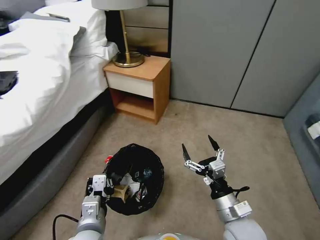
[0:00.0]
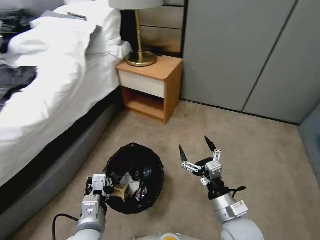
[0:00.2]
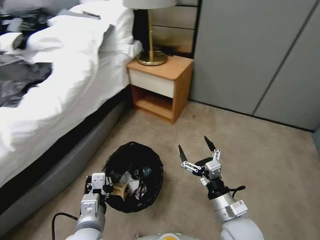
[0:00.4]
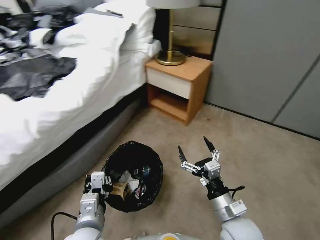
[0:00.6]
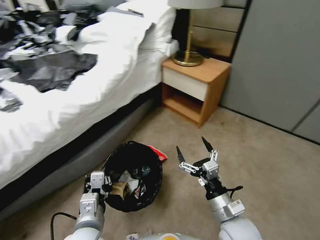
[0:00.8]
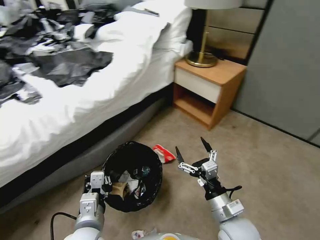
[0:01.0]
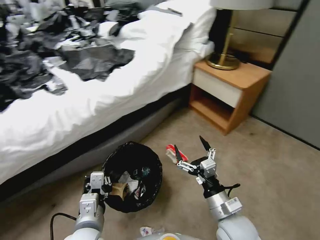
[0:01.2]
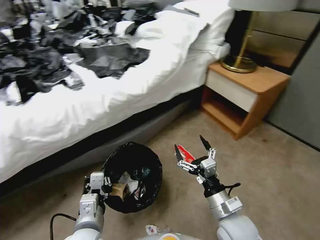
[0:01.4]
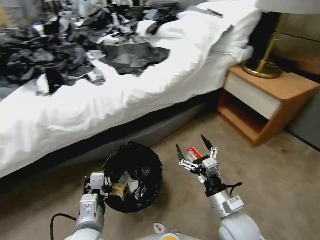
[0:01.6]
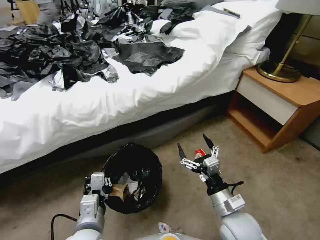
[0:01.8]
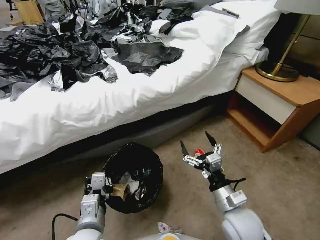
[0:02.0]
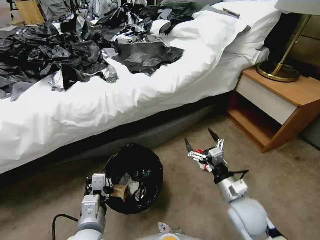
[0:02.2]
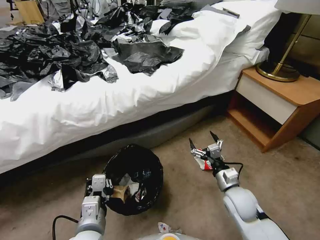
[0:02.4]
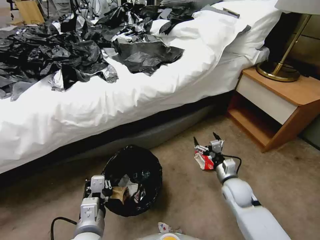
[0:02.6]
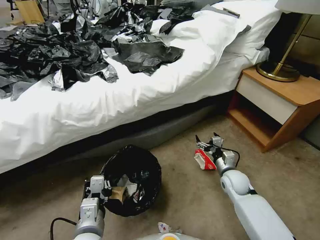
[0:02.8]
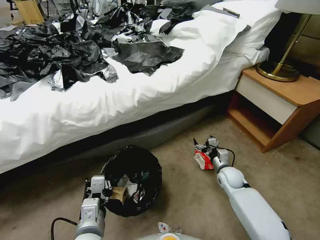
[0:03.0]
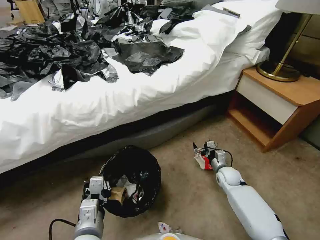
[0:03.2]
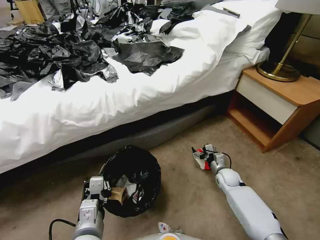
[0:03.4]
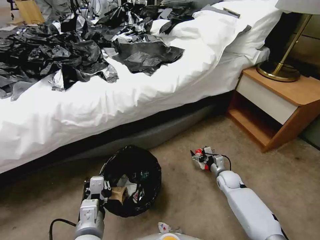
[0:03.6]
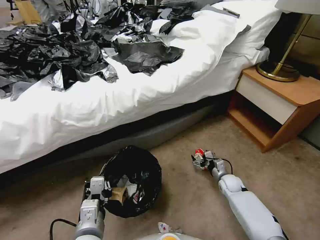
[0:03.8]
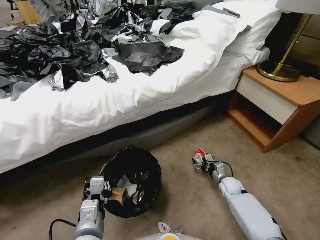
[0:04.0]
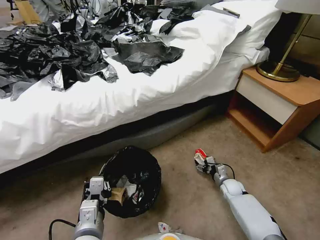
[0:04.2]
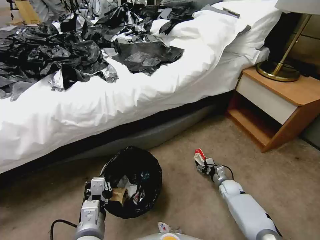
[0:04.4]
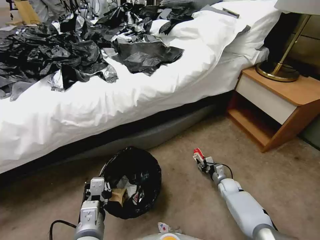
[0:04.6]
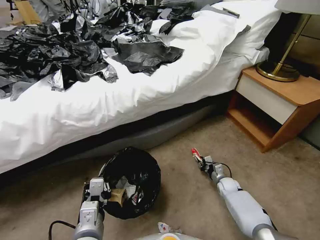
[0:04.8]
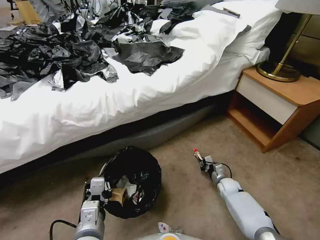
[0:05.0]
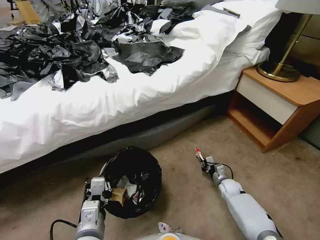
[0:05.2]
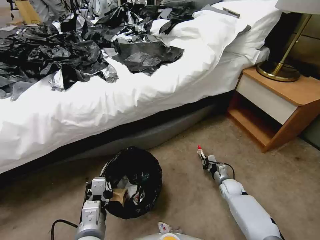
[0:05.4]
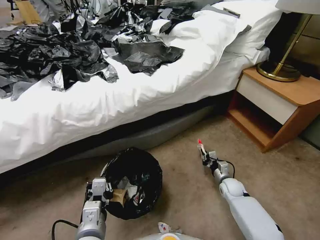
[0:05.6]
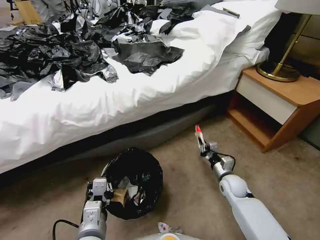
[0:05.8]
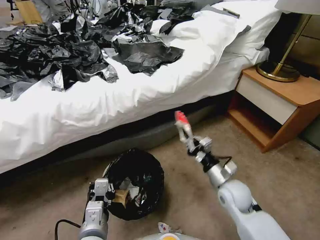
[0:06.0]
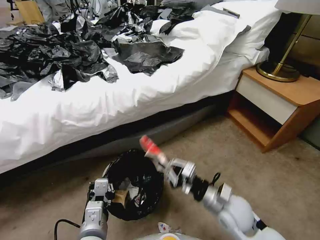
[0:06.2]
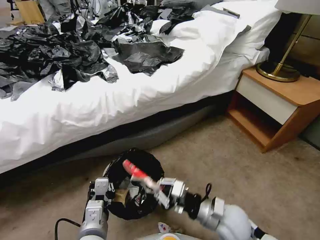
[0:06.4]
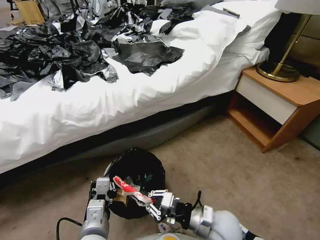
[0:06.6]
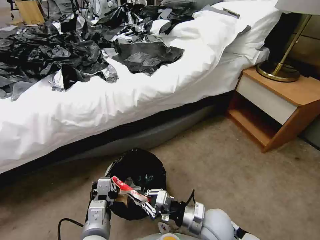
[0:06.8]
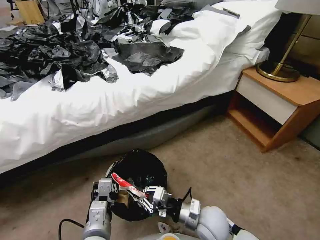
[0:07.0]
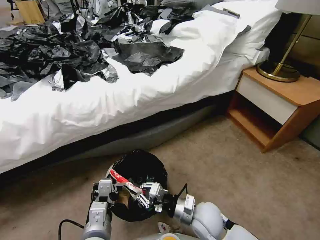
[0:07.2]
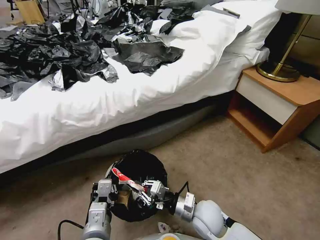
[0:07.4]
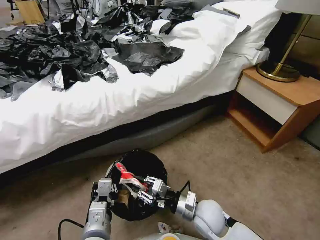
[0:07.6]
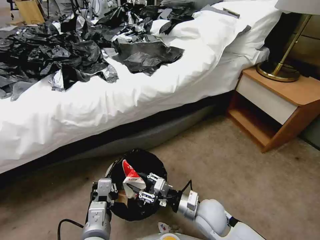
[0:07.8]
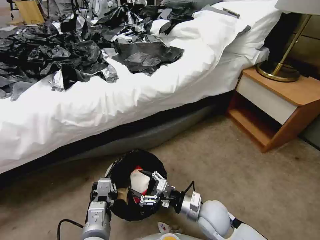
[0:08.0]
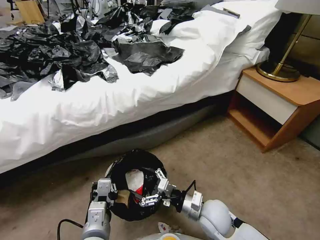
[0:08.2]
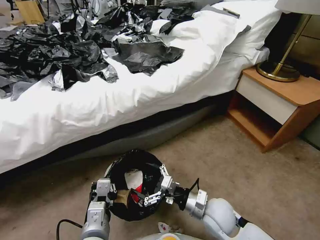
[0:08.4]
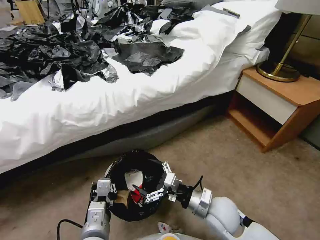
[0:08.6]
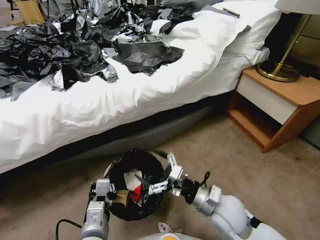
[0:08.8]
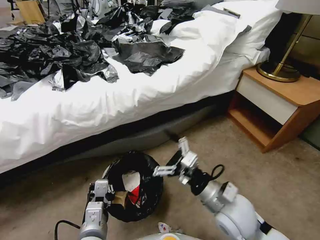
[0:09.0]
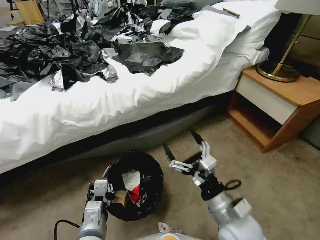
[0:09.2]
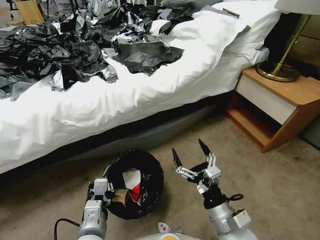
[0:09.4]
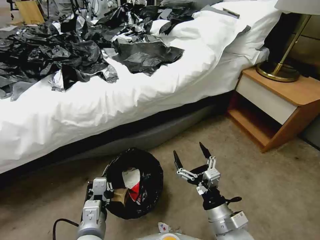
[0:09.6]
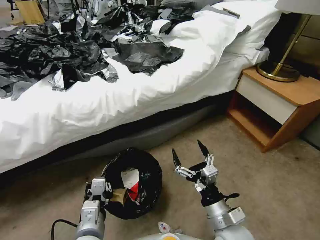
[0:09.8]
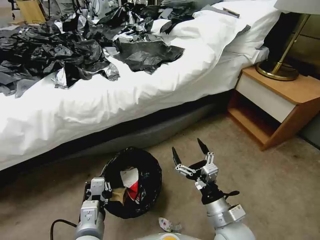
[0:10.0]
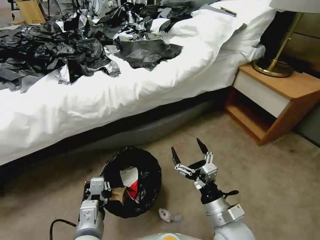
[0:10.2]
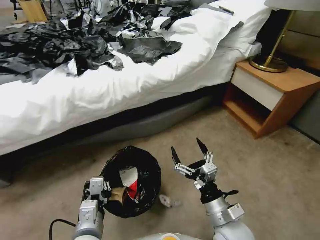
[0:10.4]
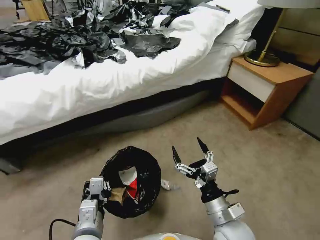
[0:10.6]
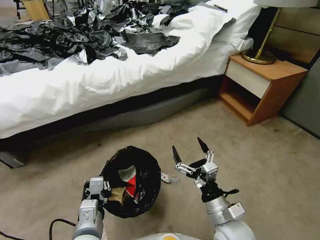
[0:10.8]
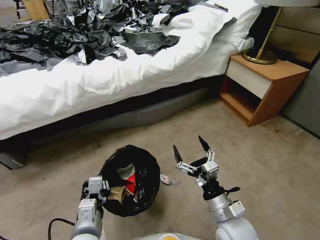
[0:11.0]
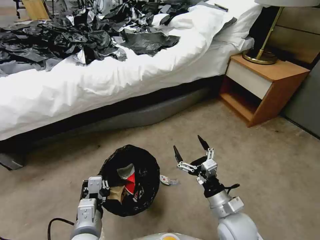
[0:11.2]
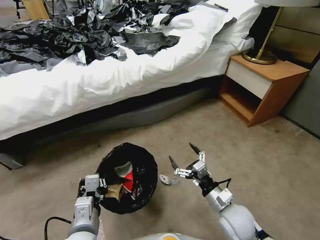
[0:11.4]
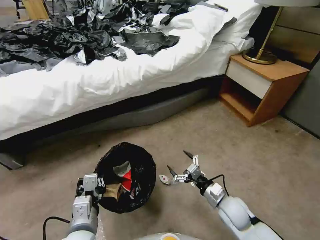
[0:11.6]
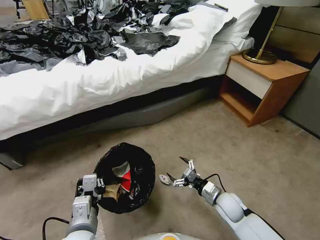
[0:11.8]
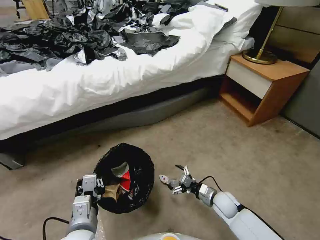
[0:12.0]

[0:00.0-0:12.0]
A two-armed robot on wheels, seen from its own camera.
Task of the whole recording: Pick up the trash bin, then pick up the garbage from the floor and place it into the trash bin.
0:01.6 to 0:03.0: The right gripper travels forward, downward and to the right by approximately 25 cm.
0:03.0 to 0:04.4: The right gripper moves downward, about 10 cm, and closes its fingers.
0:04.4 to 0:06.0: The right gripper heads upward, covering some 20 cm, and closes up.
0:06.0 to 0:07.6: The right gripper travels to the left and backward by roughly 10 cm.
0:07.6 to 0:09.0: The right gripper moves upward, some 10 cm, and opens up.
0:09.0 to 0:10.4: The right gripper is displaced downward by about 5 cm.
0:10.4 to 0:12.0: The right gripper heads downward and forward, covering some 20 cm.

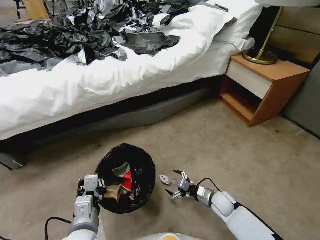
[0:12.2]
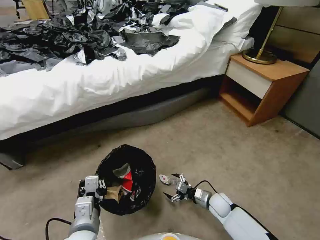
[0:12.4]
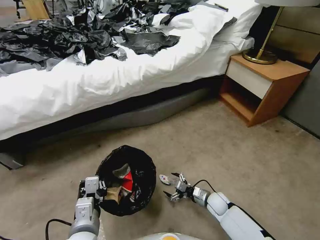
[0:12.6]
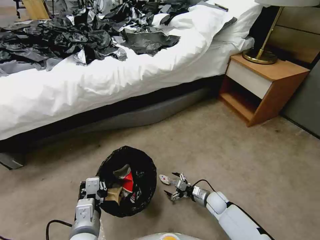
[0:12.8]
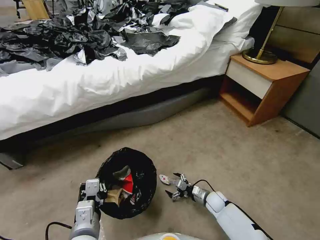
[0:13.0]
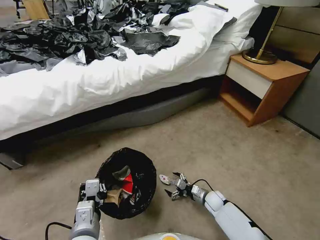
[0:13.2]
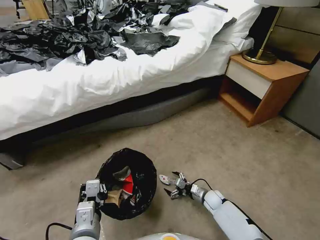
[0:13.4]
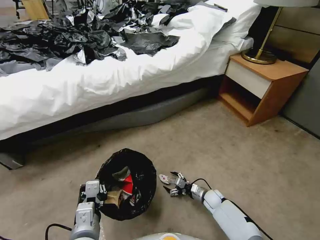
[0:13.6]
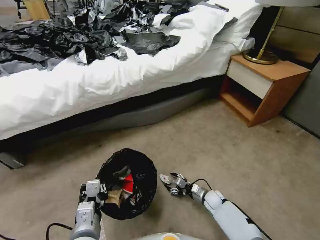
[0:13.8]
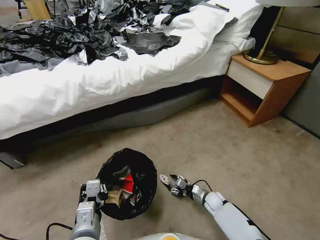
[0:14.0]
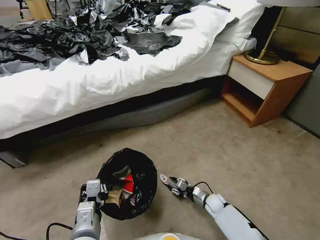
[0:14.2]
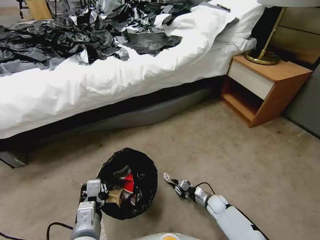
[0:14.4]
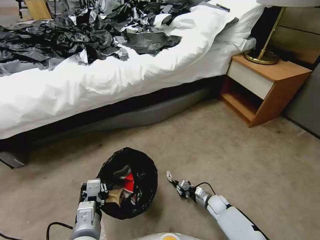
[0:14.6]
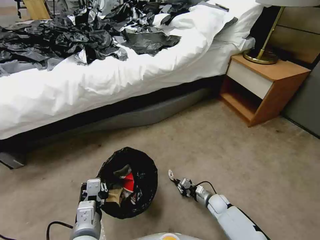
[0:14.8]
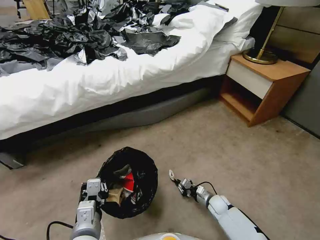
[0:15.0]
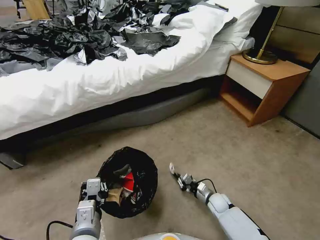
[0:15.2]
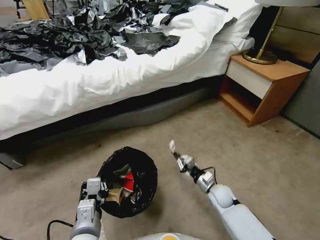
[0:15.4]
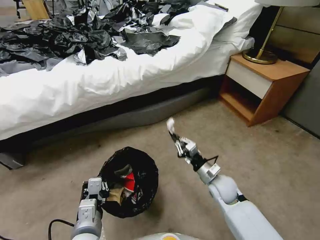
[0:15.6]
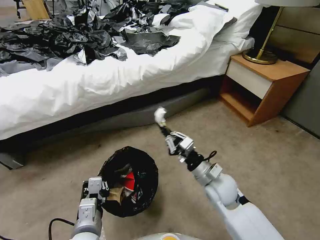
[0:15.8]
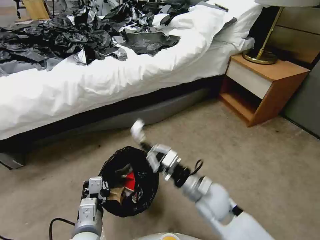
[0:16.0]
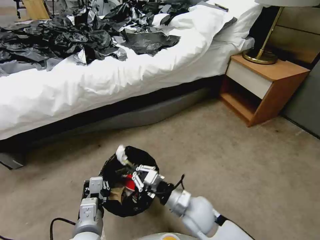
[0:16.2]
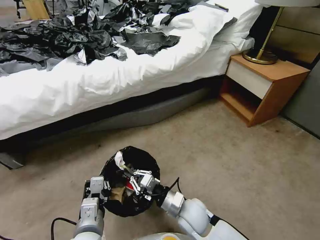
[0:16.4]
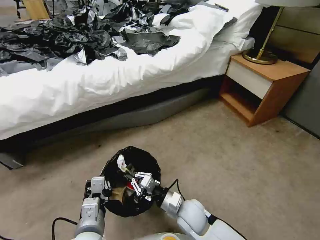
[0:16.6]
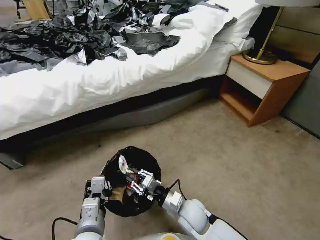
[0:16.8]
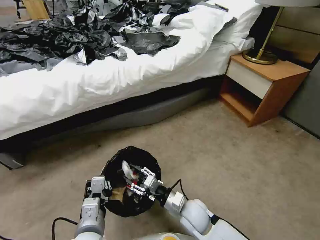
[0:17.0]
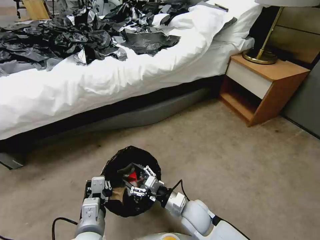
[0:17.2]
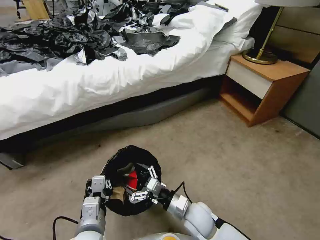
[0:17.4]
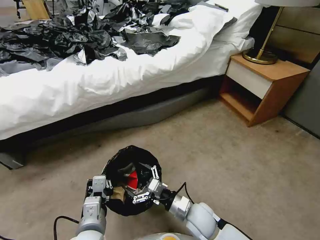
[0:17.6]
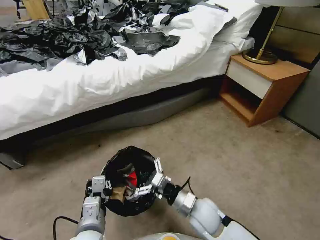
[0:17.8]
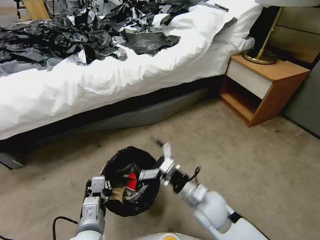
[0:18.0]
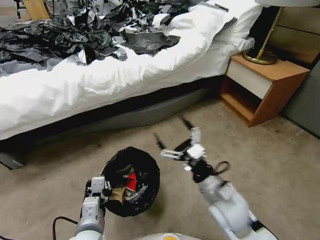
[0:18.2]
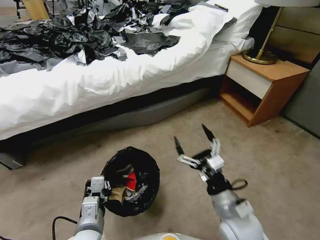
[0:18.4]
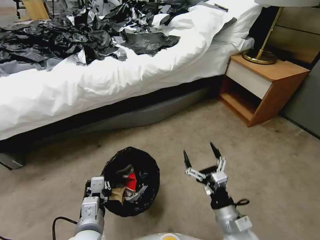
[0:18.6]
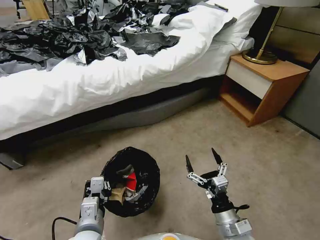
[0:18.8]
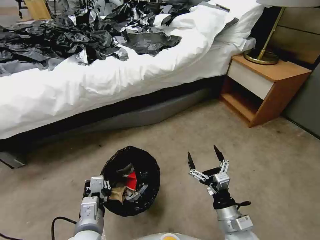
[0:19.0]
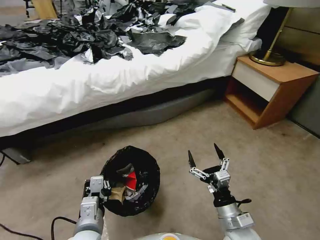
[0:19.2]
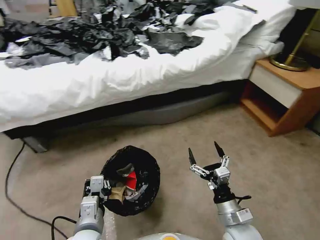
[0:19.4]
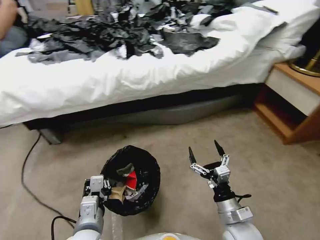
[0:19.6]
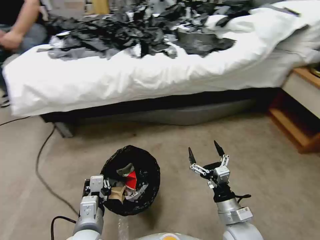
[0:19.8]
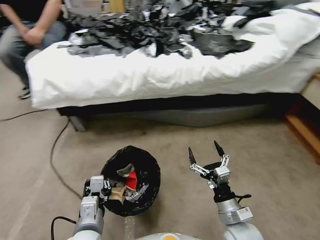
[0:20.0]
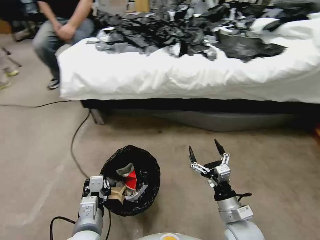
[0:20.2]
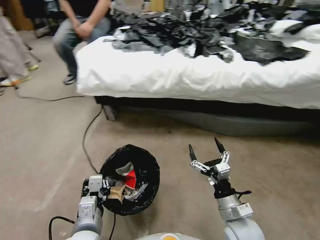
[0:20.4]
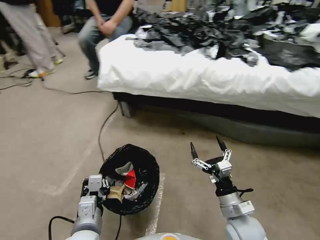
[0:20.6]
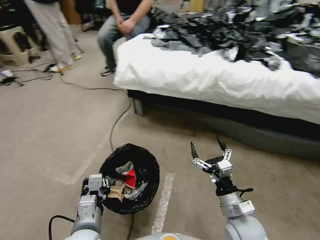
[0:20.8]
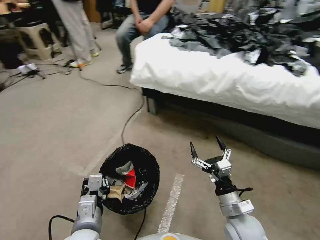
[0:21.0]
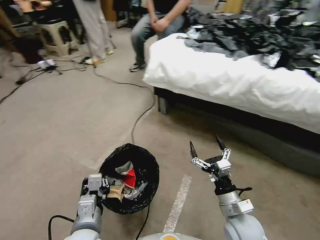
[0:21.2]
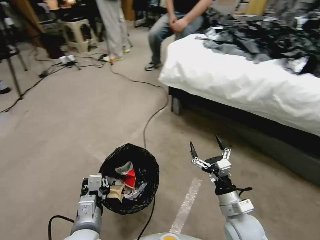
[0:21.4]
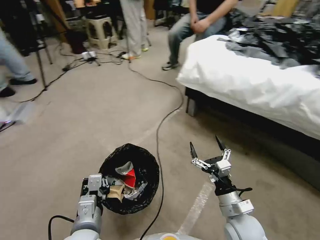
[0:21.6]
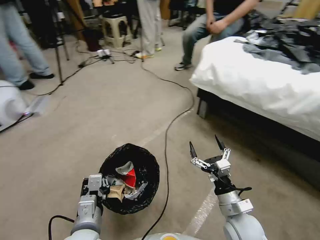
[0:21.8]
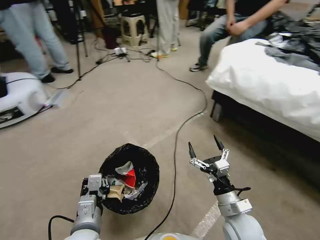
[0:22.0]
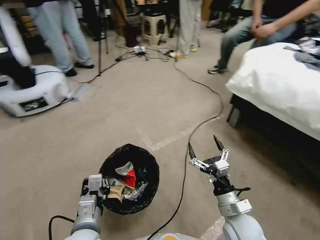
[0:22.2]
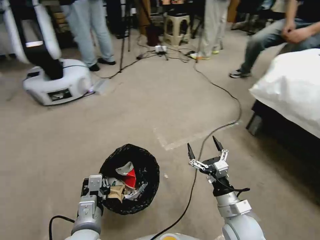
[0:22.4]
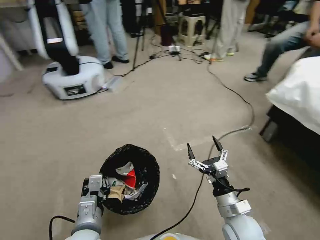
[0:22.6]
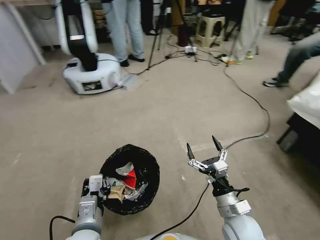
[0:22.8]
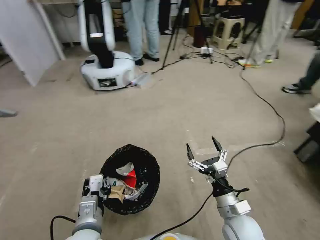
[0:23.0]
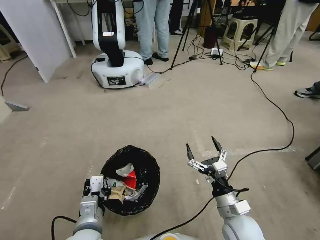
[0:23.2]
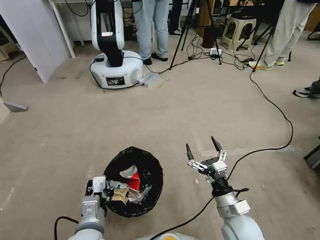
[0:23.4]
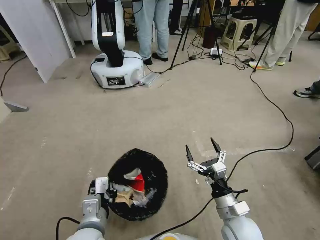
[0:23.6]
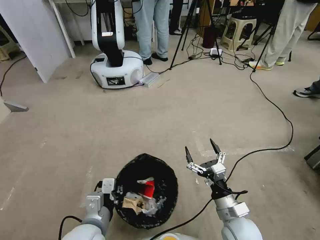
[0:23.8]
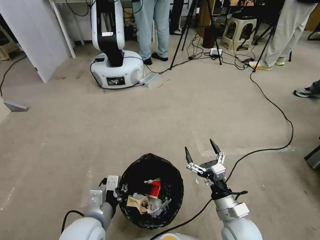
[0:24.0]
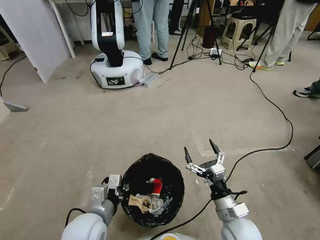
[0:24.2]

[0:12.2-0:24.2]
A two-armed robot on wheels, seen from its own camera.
Task of the whole recording: Pick up the trash bin, then pick up the garbage from the floor and place it into the trash bin.
0:12.2 to 0:13.8: The right gripper is displaced downward by about 5 cm.
0:13.8 to 0:15.2: The right gripper closes.
0:15.2 to 0:16.6: The right gripper moves upward, to the left and backward, roughly 25 cm.
0:16.6 to 0:18.2: The right gripper heads upward and to the right, covering about 15 cm, and opens its fingers.
0:18.2 to 0:19.8: The right gripper shifts some 10 cm downward and backward.
